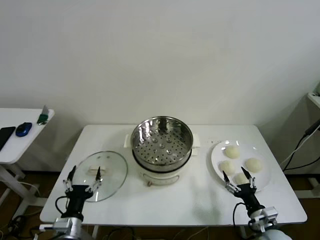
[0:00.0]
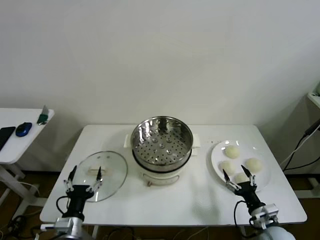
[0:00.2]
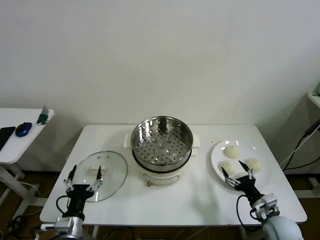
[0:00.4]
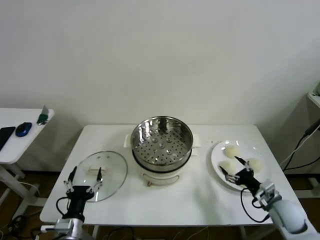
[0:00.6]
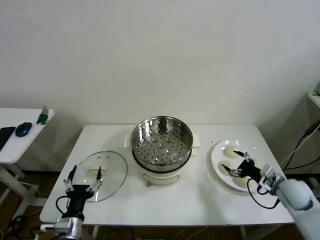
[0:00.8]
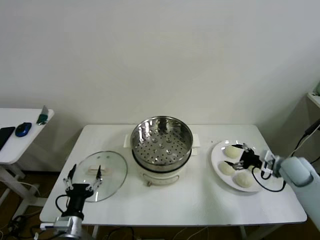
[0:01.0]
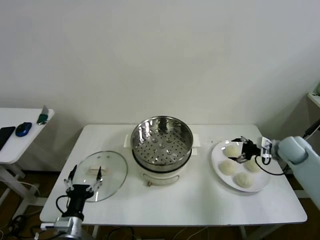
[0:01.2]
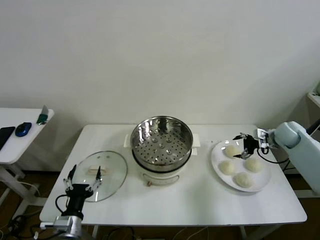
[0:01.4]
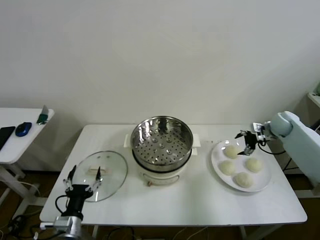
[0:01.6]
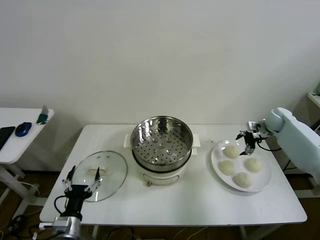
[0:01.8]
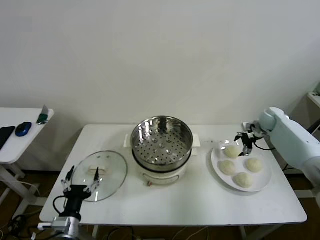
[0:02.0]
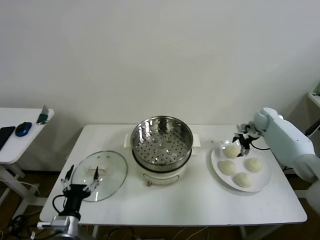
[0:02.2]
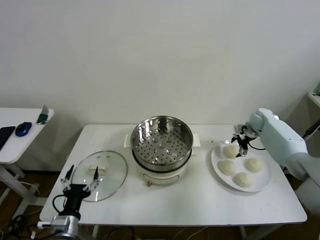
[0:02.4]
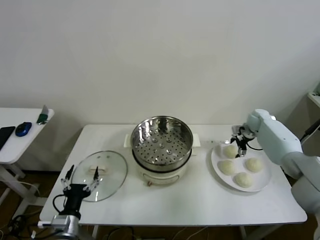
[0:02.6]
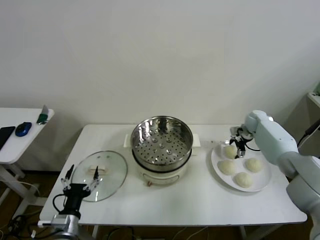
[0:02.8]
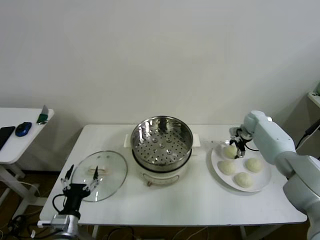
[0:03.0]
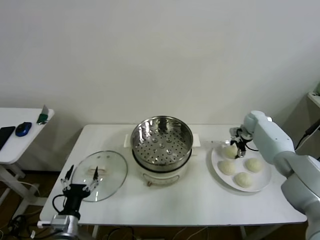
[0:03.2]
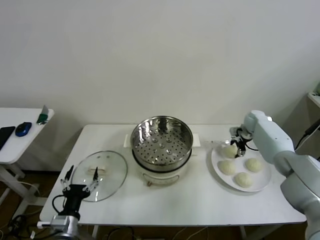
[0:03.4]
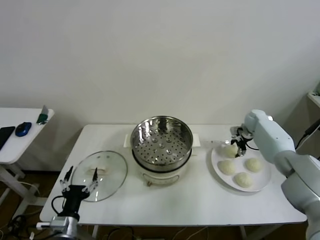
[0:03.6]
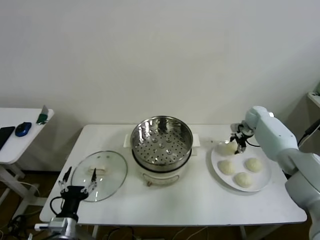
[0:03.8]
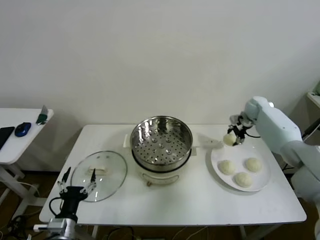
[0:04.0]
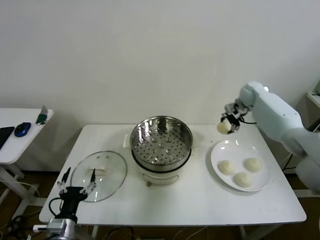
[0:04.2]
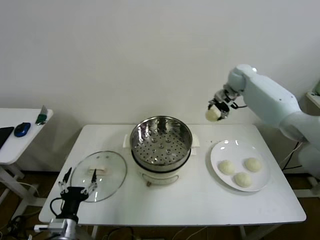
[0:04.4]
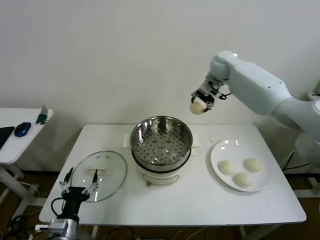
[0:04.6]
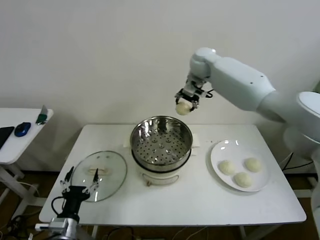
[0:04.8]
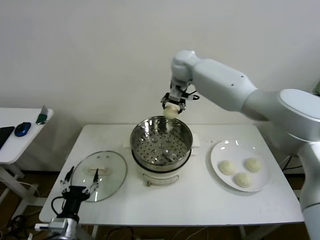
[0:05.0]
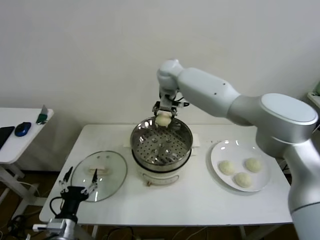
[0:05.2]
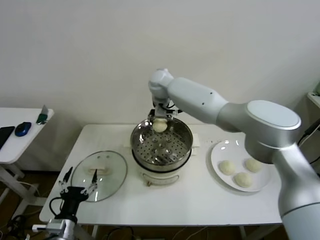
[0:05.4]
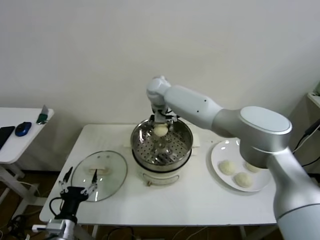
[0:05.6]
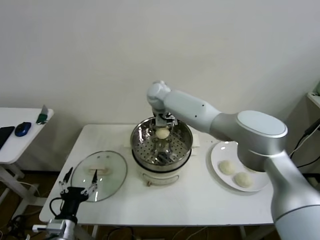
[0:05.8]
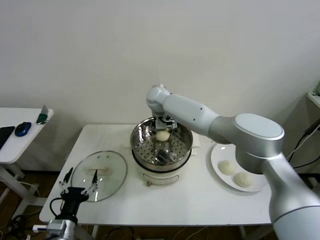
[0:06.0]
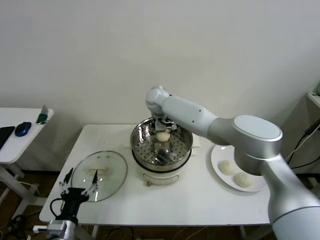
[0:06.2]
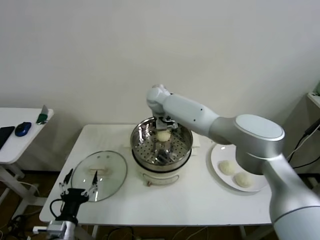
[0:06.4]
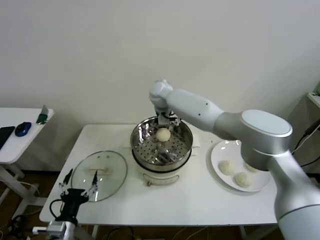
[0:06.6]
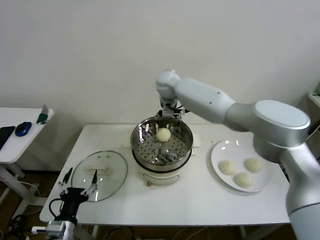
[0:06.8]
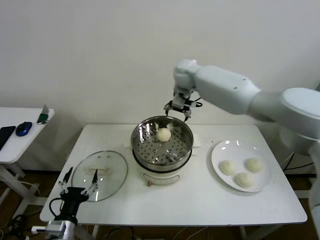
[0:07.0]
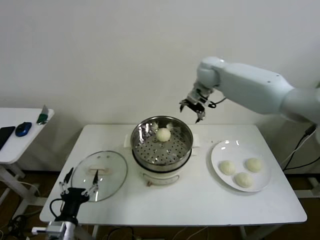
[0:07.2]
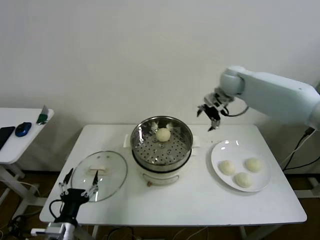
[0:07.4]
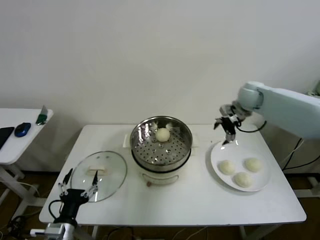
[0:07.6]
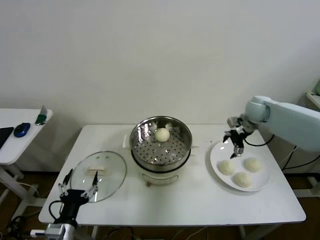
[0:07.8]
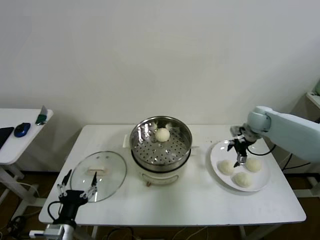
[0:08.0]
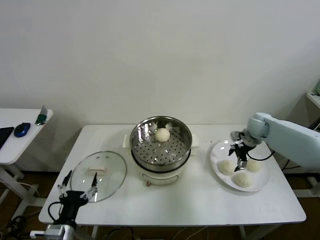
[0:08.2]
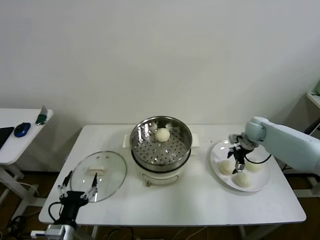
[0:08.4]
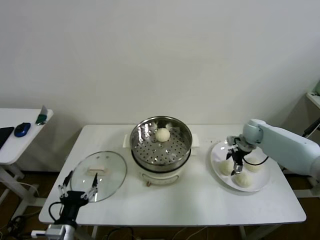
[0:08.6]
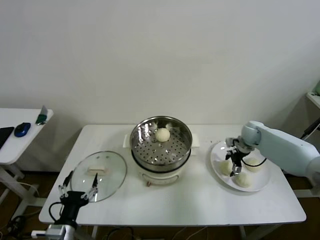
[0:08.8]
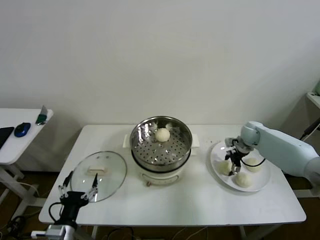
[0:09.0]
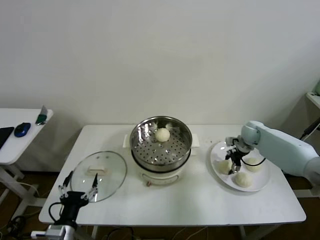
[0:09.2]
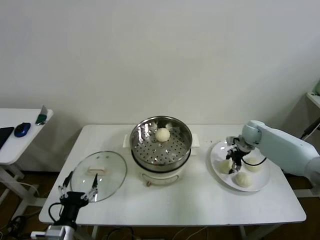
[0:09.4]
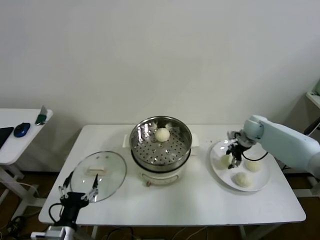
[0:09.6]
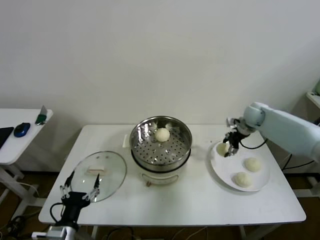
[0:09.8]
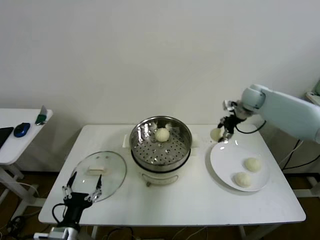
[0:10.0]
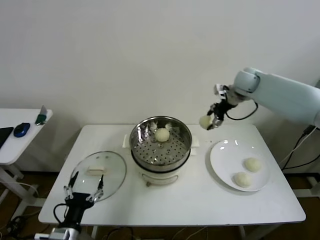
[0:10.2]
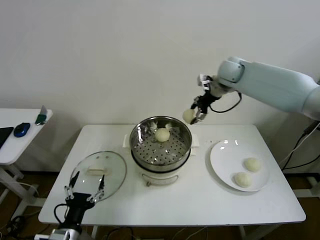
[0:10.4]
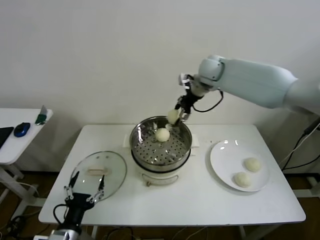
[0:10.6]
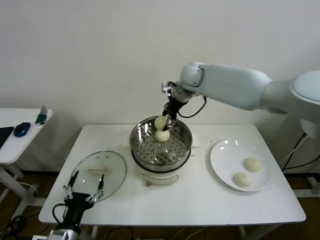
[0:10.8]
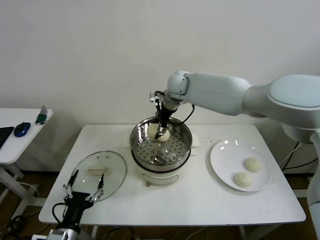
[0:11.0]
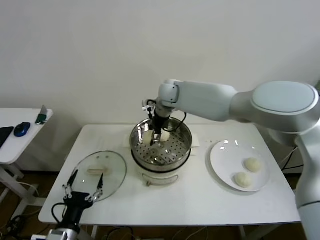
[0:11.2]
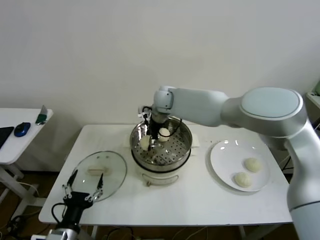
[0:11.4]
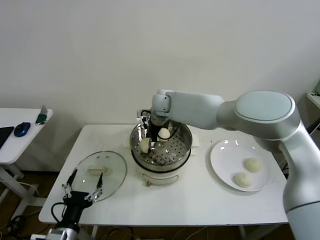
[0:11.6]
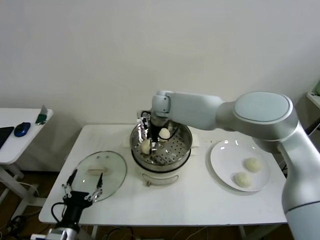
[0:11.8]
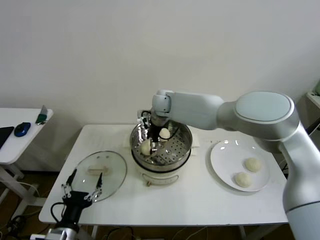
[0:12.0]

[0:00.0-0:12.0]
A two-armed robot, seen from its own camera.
Step, 0:00.0 to 0:03.4: Grasp the baozi in the plate with right gripper.
Step, 0:03.6 to 0:06.0: Place the baozi on the steamer with right gripper.
Step, 0:06.2 to 0:09.0: Grasp the baozi in the plate with right gripper.
Step, 0:09.2 to 0:11.8: Place the baozi on the steamer with right gripper.
0:01.6 to 0:03.0: The right gripper heads forward, to the left and downward, covering about 10 cm.
0:03.0 to 0:04.4: The right gripper heads upward and to the left, covering approximately 25 cm, and closes.
0:04.4 to 0:06.0: The right gripper heads to the left, covering approximately 30 cm.
0:06.0 to 0:07.6: The right gripper is displaced to the right by about 35 cm, and opens its fingers.
0:07.6 to 0:09.0: The right gripper heads downward, covering roughly 15 cm.
0:09.0 to 0:10.4: The right gripper is displaced upward and to the left by roughly 30 cm, and closes its fingers.
0:10.4 to 0:12.0: The right gripper shifts about 25 cm to the left and downward, and opens its fingers.

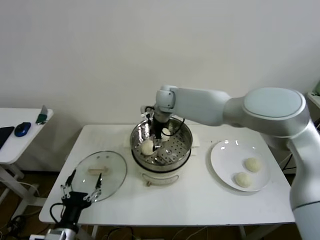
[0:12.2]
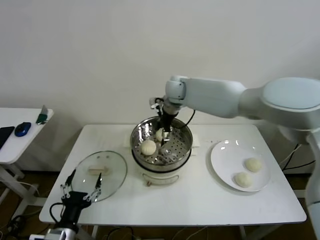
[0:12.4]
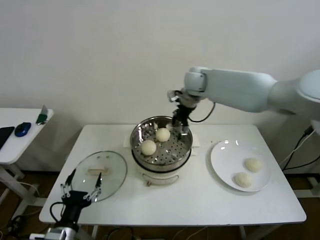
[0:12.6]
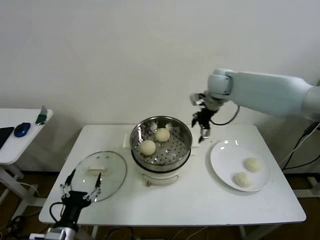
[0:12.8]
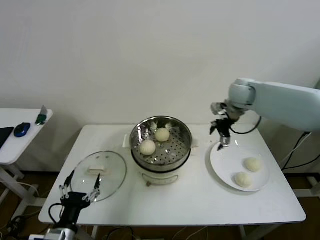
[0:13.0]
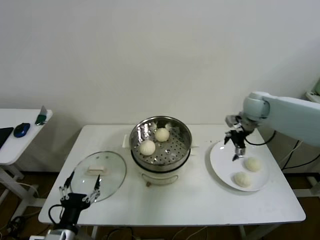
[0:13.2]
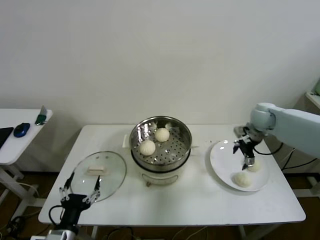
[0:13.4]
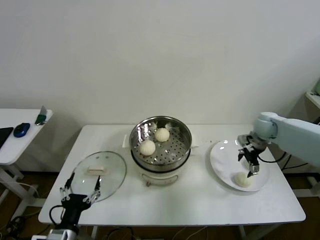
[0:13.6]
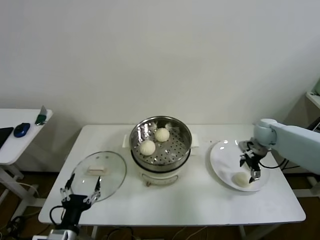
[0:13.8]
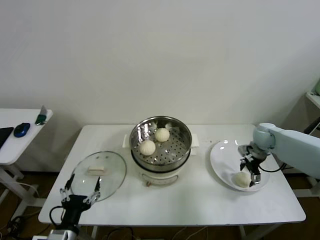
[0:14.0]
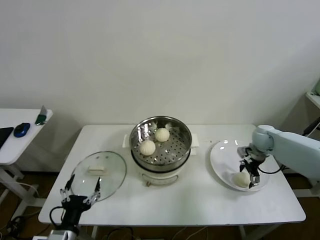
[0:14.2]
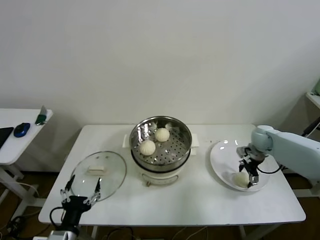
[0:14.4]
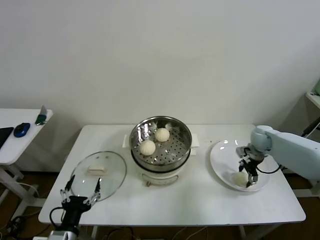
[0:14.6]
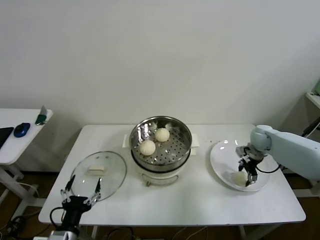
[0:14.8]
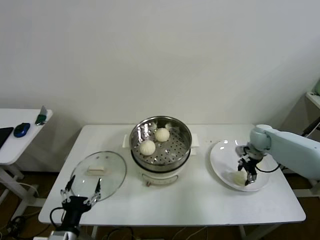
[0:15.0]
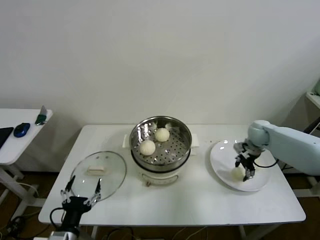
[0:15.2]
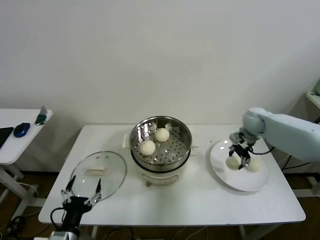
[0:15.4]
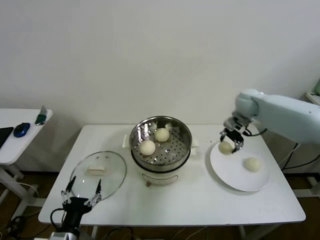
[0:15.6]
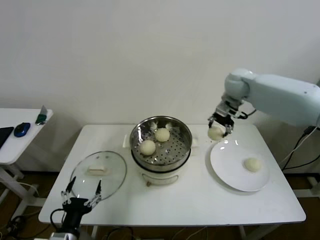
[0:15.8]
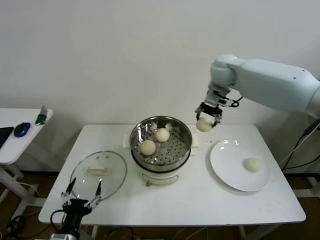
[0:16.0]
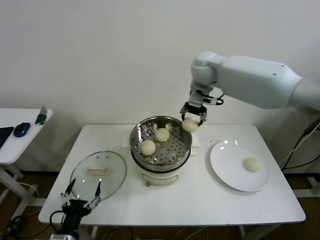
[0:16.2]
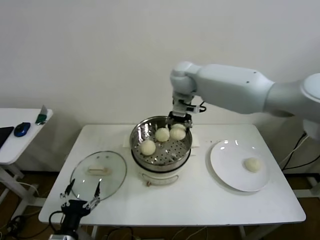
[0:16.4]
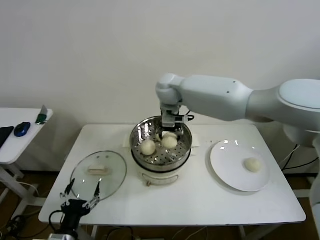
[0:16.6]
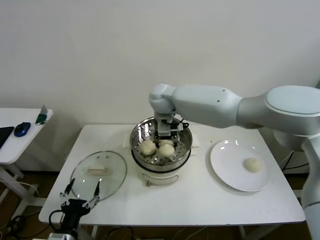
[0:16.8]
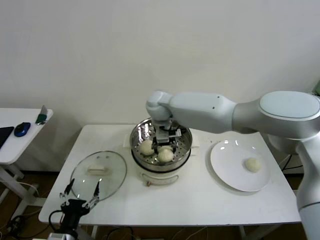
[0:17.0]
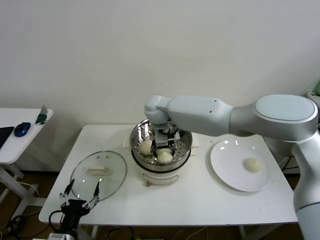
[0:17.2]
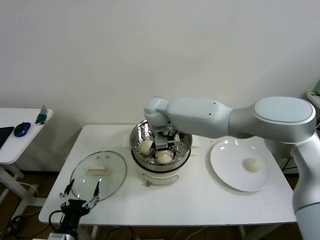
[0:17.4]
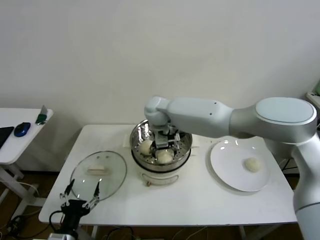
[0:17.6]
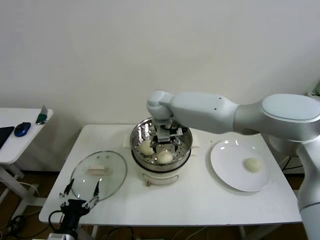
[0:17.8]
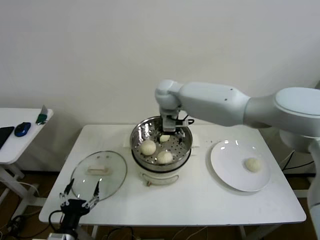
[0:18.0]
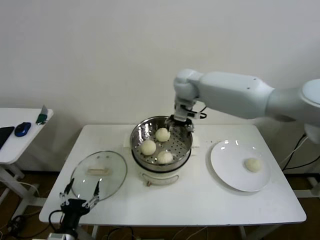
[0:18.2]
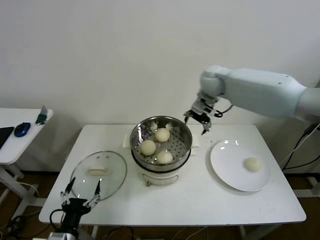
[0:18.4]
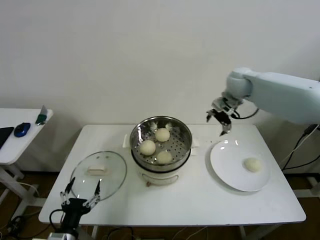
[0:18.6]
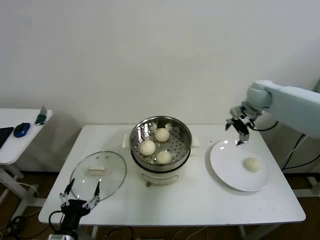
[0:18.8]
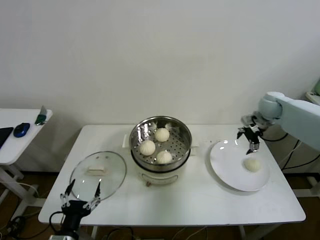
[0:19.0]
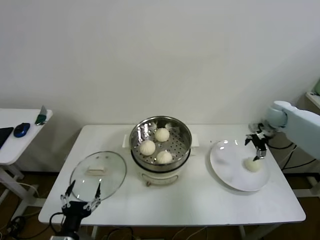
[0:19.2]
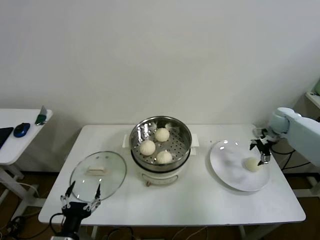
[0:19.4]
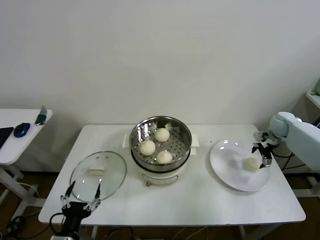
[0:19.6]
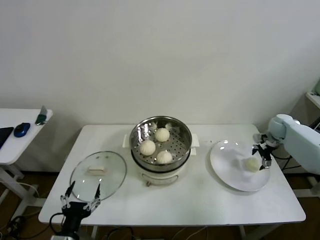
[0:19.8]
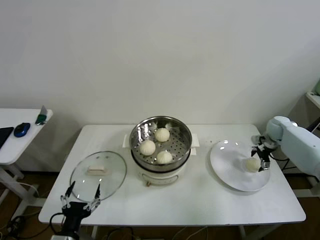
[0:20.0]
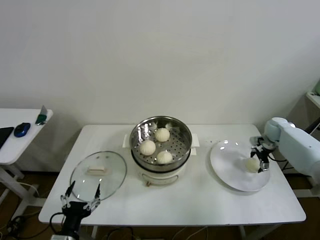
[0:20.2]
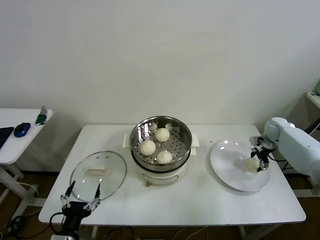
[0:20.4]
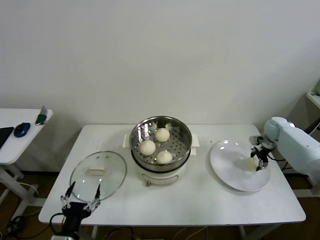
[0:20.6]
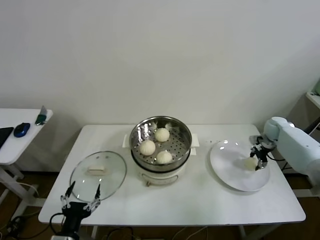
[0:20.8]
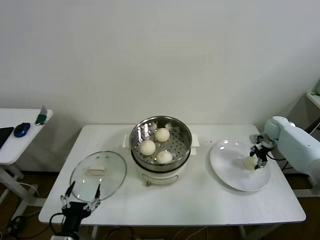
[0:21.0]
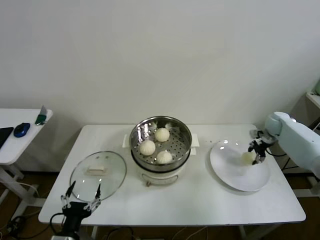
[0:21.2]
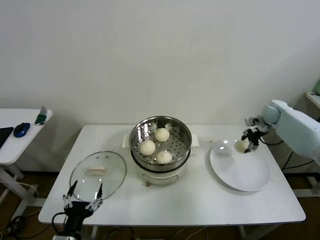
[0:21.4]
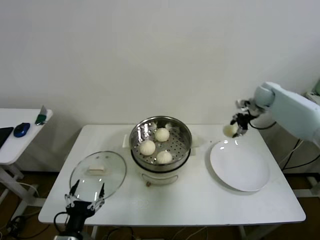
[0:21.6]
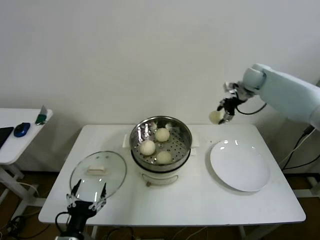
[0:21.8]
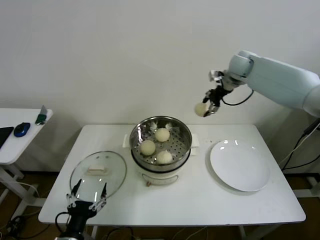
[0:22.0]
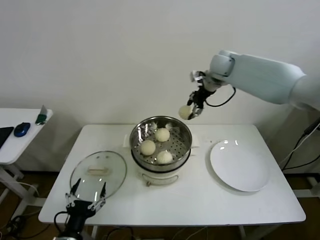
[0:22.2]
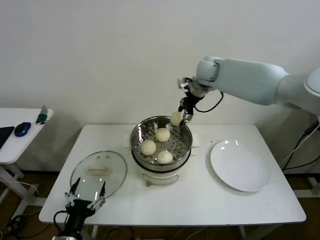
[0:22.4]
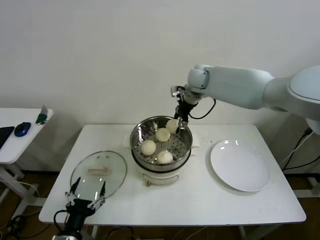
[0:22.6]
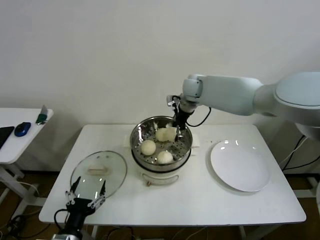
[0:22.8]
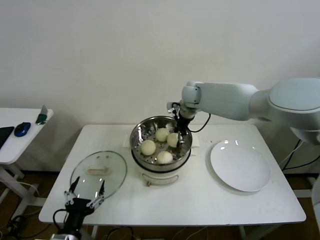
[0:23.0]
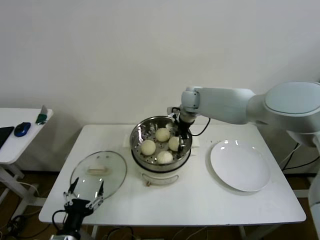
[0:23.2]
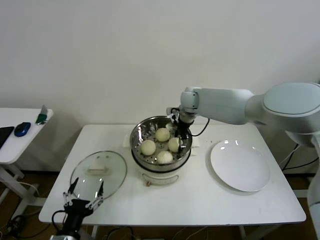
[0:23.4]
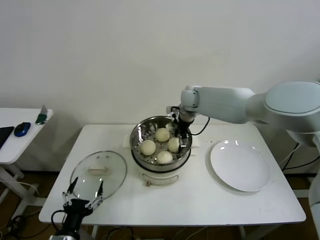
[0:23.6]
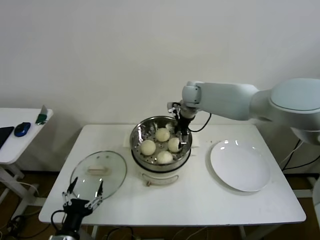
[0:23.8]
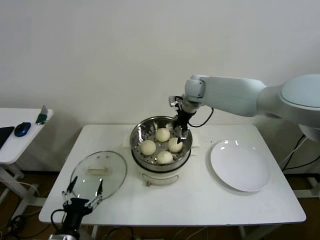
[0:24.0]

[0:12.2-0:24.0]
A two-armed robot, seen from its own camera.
Step, 0:12.2 to 0:14.8: Grasp the baozi in the plate with right gripper.
Step, 0:15.0 to 0:17.6: Place the baozi on the steamer with right gripper.
Step, 0:17.8 to 0:20.6: Grasp the baozi in the plate with right gripper.
Step, 0:21.0 to 0:23.4: Place the baozi on the steamer with right gripper.
0:12.2 to 0:13.6: The right gripper shifts roughly 35 cm to the right.
0:13.6 to 0:15.2: The right gripper closes up.
0:15.2 to 0:16.6: The right gripper is displaced to the left and upward by some 40 cm.
0:16.6 to 0:18.2: The right gripper goes about 5 cm to the right, and opens up.
0:18.2 to 0:19.6: The right gripper travels to the right and downward by approximately 40 cm.
0:19.6 to 0:21.0: The right gripper closes.
0:21.0 to 0:22.6: The right gripper goes about 40 cm to the left and upward.
0:22.6 to 0:24.0: The right gripper opens its fingers.
